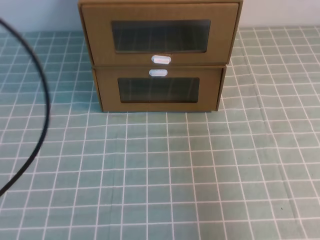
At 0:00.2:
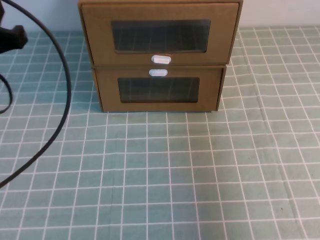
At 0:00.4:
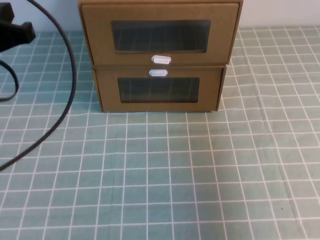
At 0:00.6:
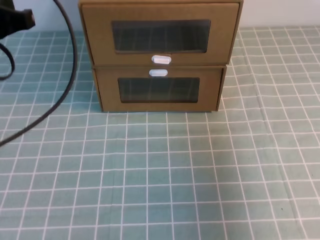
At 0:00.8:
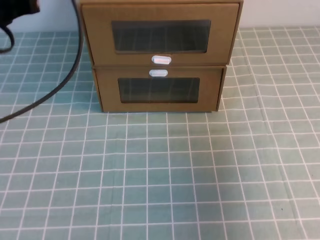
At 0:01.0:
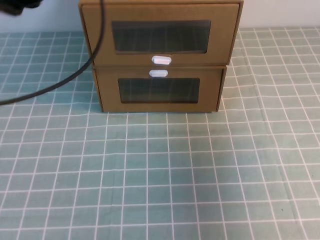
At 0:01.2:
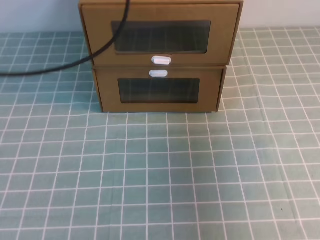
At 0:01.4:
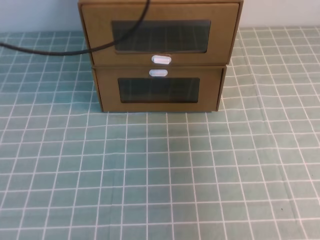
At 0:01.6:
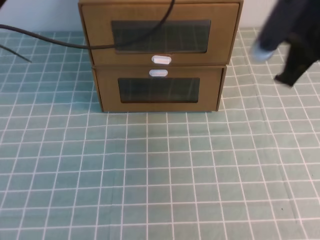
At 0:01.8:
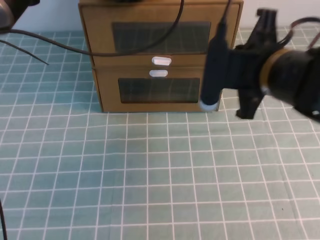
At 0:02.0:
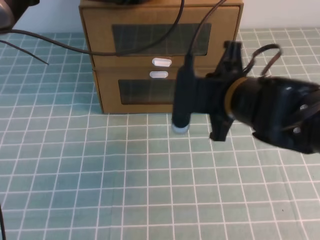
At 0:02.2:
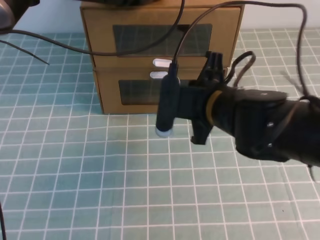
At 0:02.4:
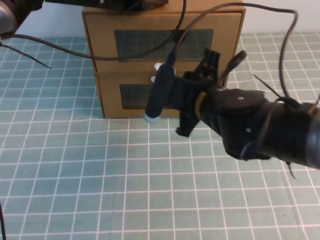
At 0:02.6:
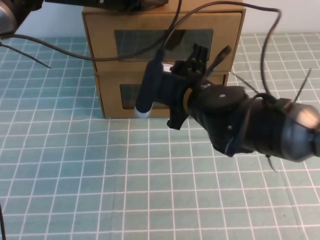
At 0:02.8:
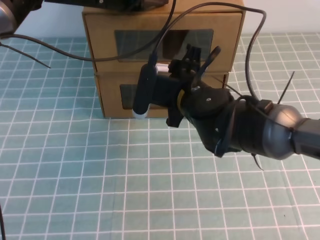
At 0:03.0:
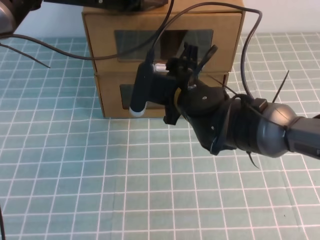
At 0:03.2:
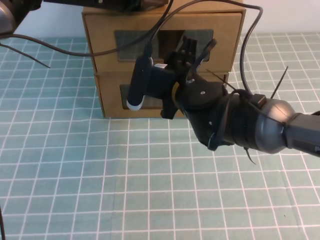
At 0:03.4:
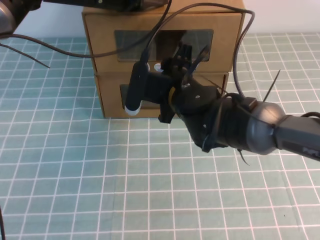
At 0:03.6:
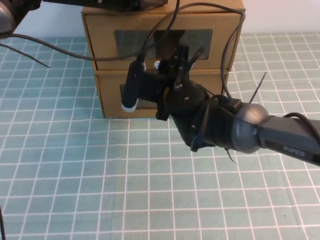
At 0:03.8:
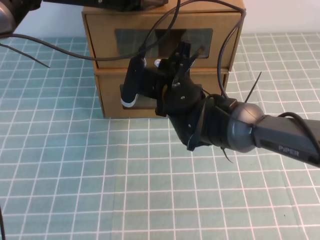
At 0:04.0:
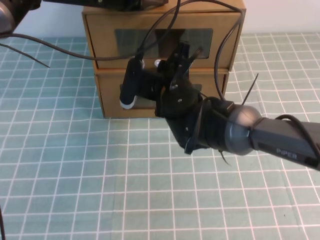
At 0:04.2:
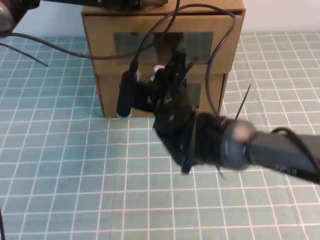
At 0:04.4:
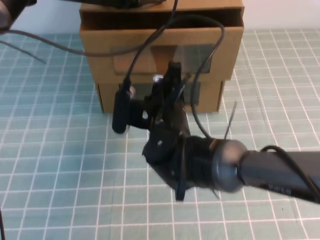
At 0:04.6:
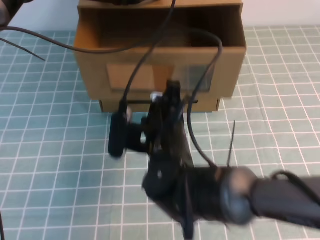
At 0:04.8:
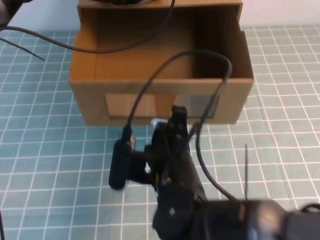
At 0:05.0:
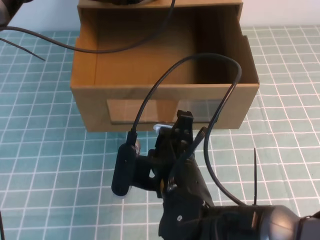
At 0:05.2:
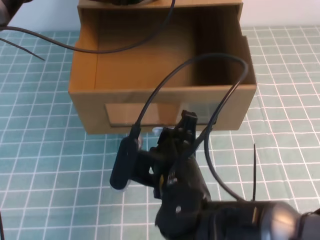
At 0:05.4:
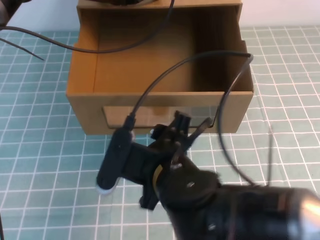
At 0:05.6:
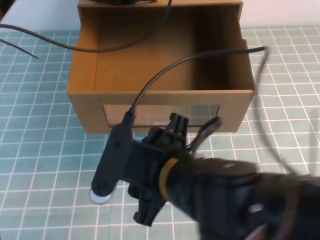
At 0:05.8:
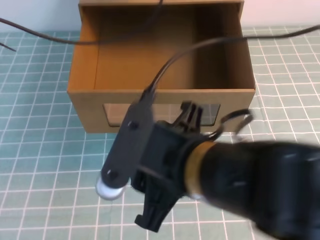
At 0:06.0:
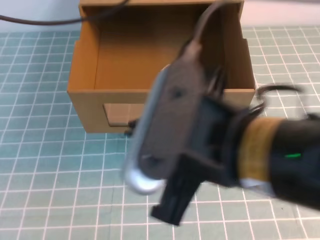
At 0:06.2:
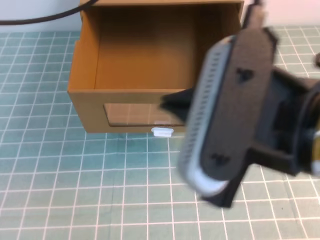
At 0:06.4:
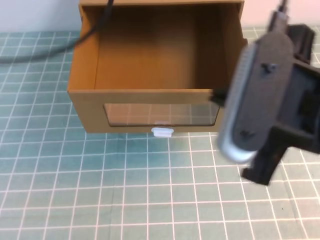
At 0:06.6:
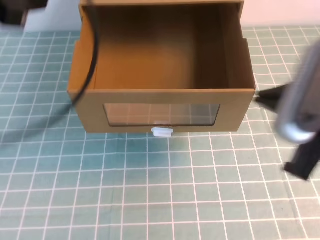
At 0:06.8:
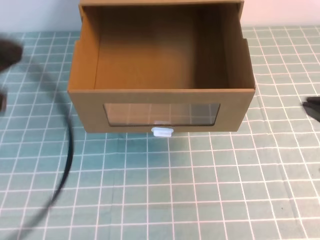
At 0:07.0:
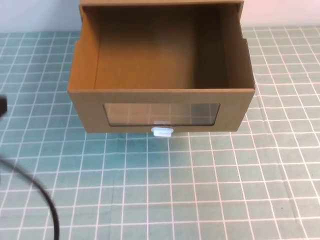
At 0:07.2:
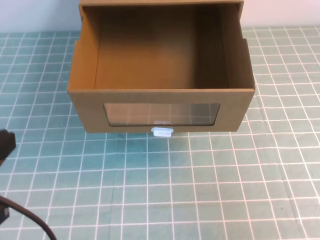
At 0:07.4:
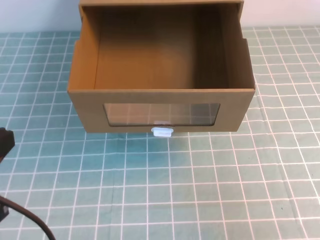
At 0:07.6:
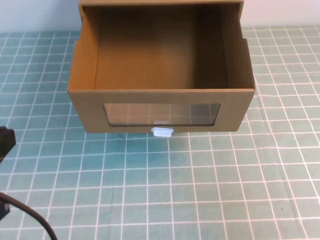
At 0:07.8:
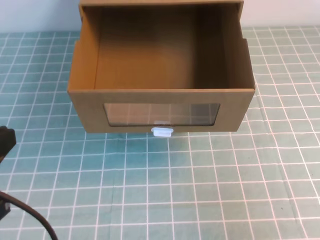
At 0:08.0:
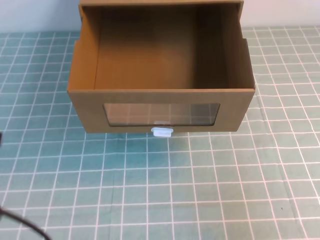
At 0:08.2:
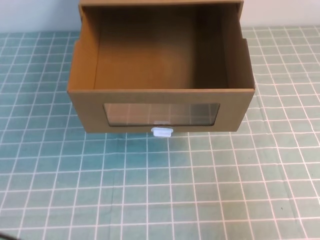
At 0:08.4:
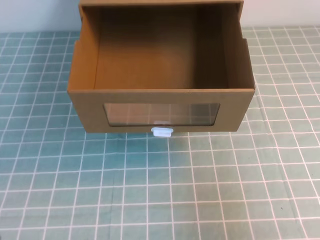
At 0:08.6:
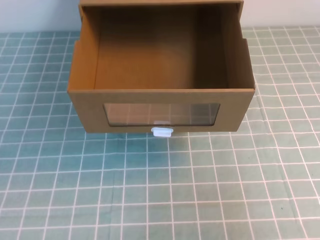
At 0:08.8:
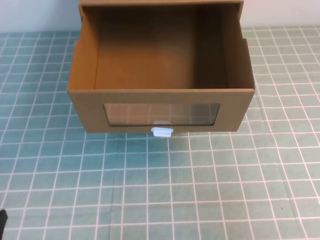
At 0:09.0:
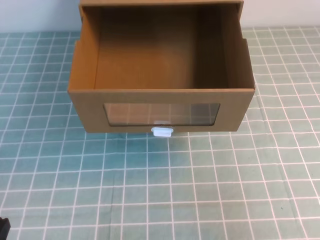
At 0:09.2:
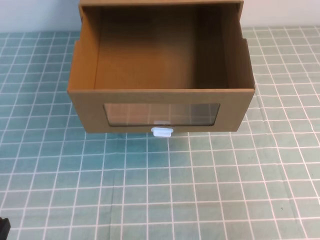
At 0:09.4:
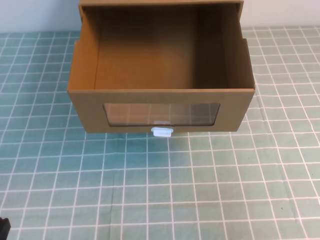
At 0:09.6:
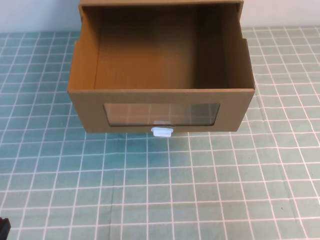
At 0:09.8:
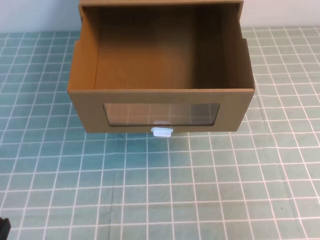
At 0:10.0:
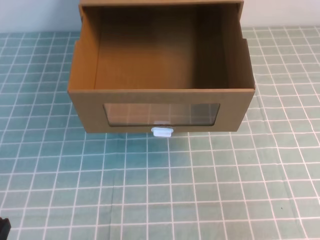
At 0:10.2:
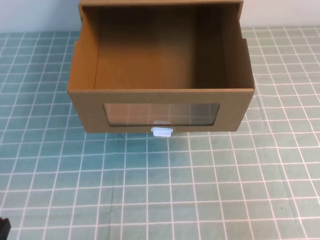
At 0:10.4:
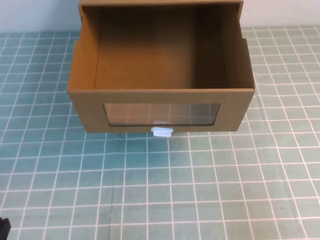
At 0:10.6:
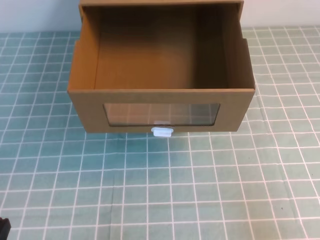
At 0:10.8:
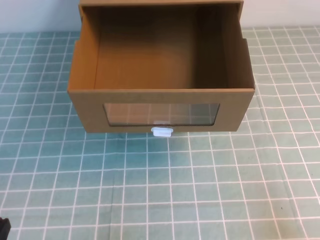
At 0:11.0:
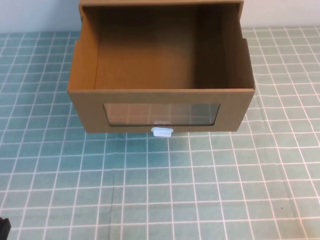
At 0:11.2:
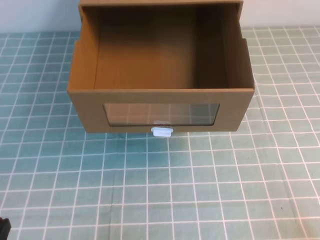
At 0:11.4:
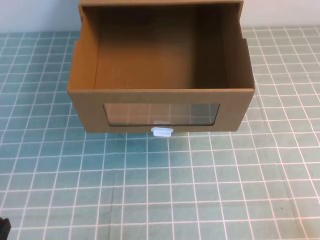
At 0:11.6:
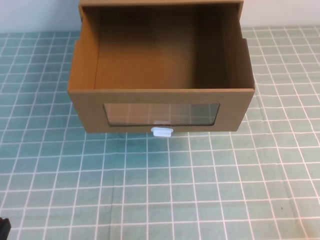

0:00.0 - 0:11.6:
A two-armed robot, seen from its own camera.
Task of the whole recording: open the shoebox on the cyan tablecloth.
Step, 0:00.0 - 0:11.6: Open the shoe box.
0:00.0 - 0:01.4: The right gripper goes about 15 cm forward; the left gripper travels forward and to the right by about 25 cm.
0:01.4 - 0:02.8: The left gripper goes some 10 cm forward, downward and to the right, while the right gripper heads to the left and downward, covering about 25 cm, and opens.
0:02.8 - 0:04.4: The right gripper ends up about 5 cm from where it was, and closes.
0:04.4 - 0:05.8: The left gripper goes some 5 cm upward; the right gripper is displaced backward and upward by roughly 20 cm, and opens.
0:05.8 - 0:07.2: The left gripper is displaced backward by approximately 30 cm. Meanwhile the right gripper is displaced to the right by about 25 cm, and closes its fingers.
0:07.2 - 0:08.8: The left gripper travels downward by some 15 cm.
0:10.2 - 0:11.6: The right gripper heads downward, covering about 15 cm.
